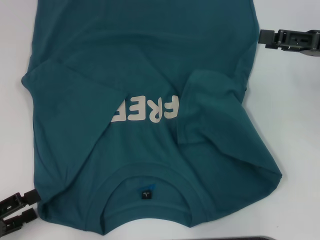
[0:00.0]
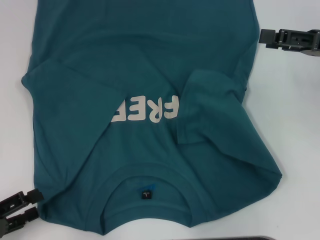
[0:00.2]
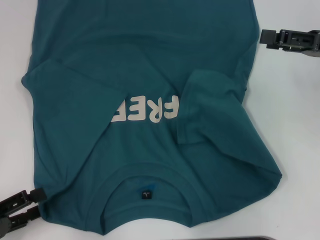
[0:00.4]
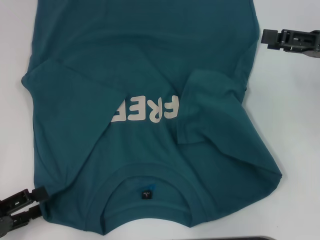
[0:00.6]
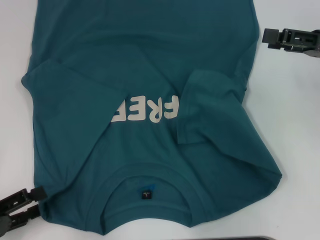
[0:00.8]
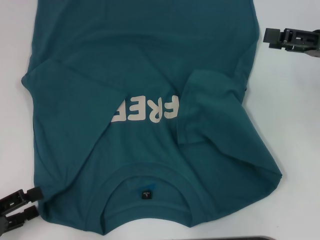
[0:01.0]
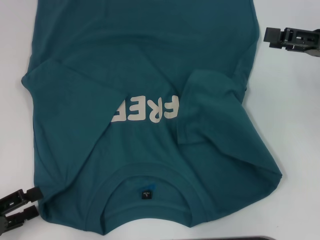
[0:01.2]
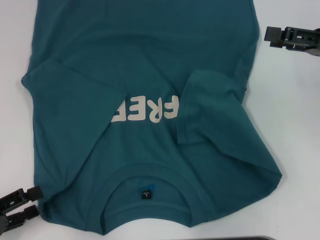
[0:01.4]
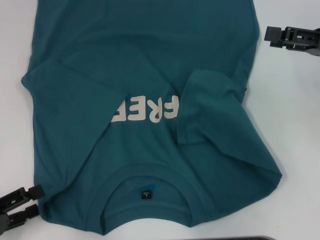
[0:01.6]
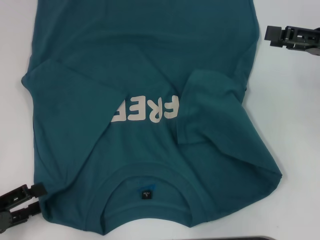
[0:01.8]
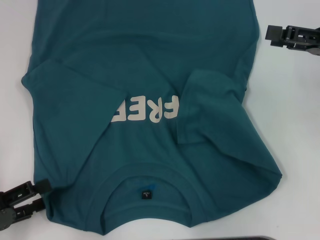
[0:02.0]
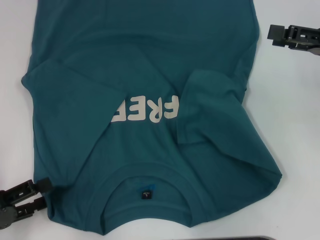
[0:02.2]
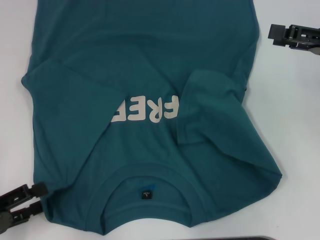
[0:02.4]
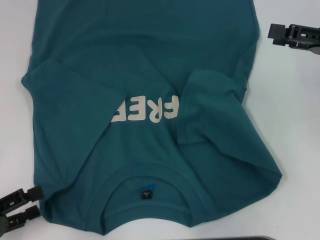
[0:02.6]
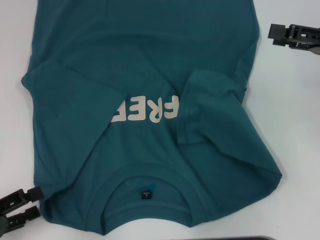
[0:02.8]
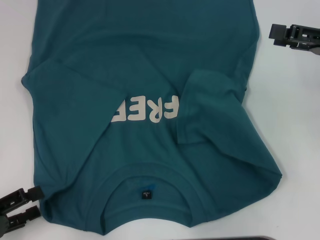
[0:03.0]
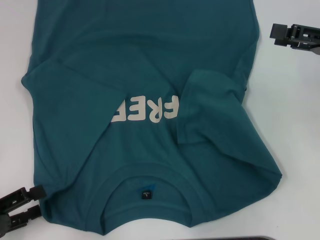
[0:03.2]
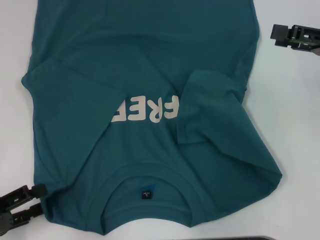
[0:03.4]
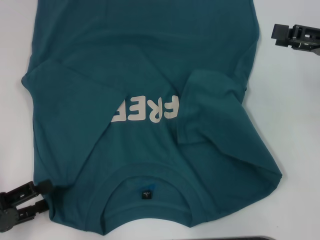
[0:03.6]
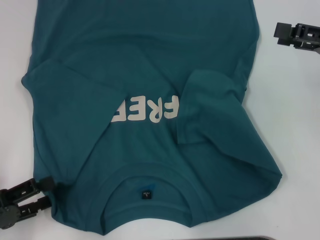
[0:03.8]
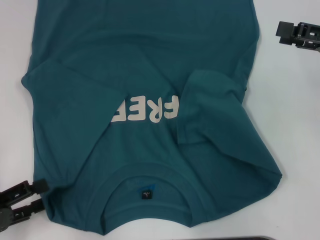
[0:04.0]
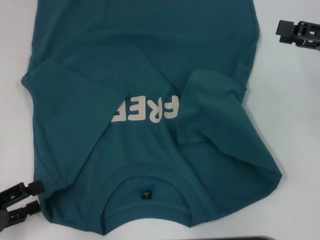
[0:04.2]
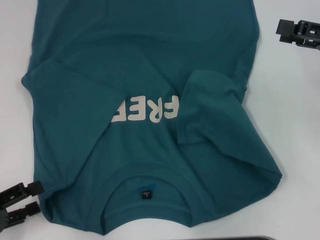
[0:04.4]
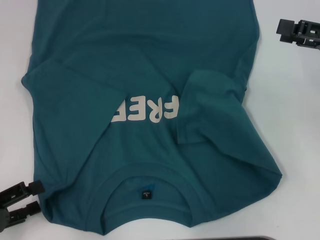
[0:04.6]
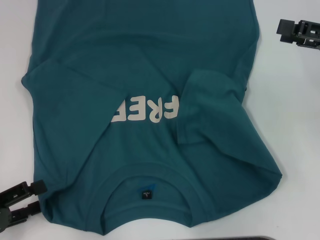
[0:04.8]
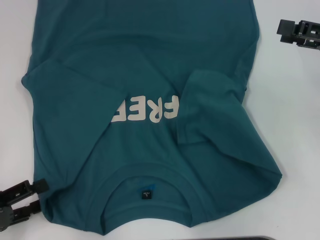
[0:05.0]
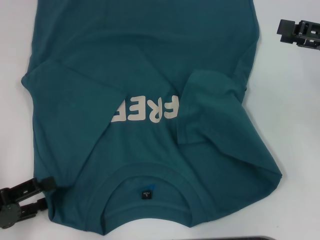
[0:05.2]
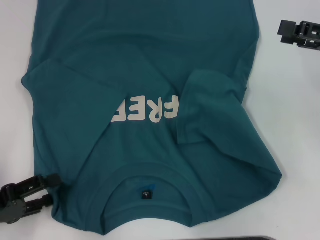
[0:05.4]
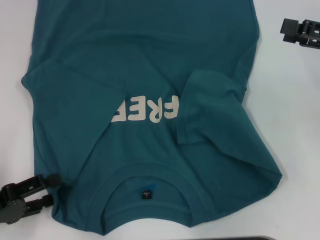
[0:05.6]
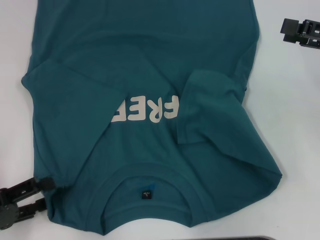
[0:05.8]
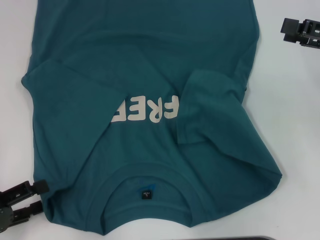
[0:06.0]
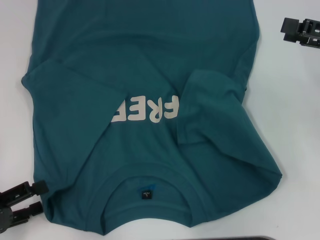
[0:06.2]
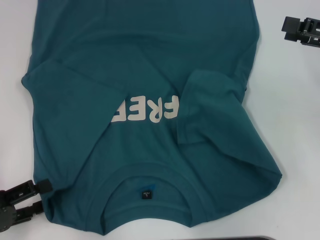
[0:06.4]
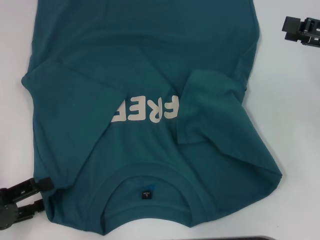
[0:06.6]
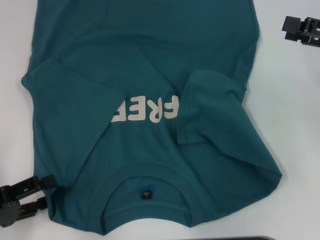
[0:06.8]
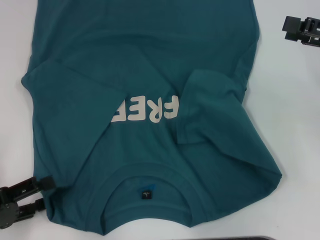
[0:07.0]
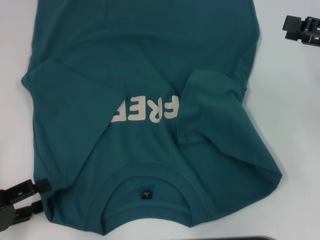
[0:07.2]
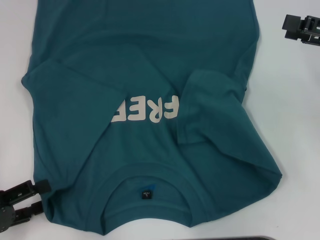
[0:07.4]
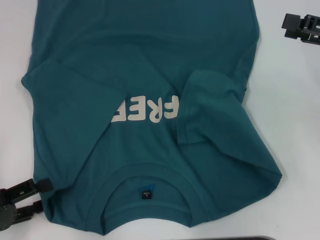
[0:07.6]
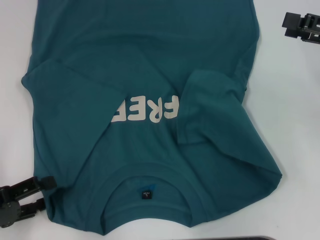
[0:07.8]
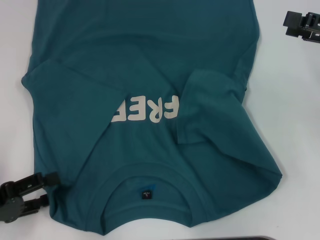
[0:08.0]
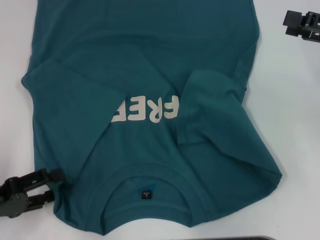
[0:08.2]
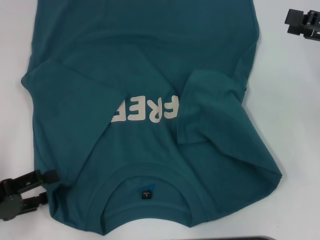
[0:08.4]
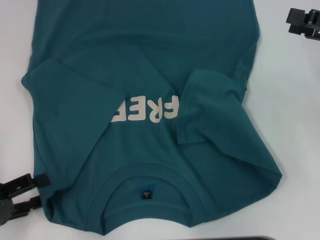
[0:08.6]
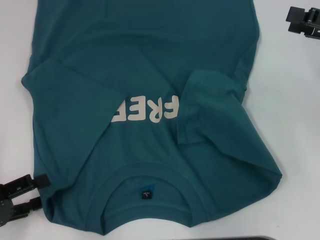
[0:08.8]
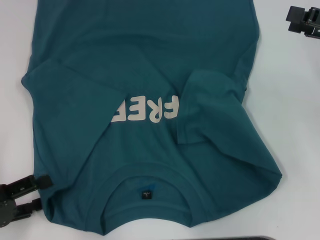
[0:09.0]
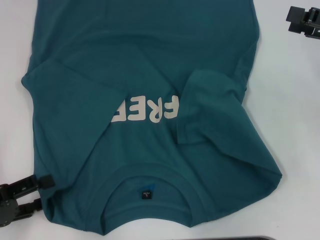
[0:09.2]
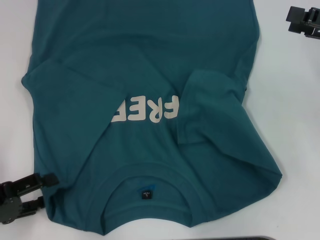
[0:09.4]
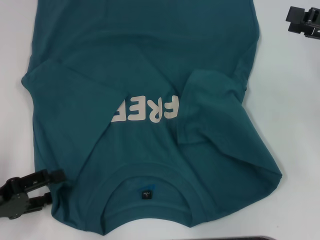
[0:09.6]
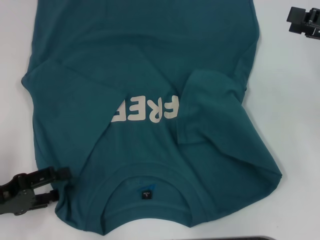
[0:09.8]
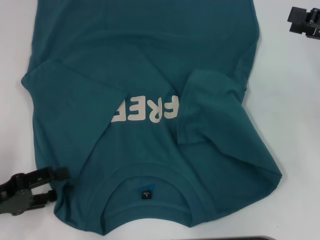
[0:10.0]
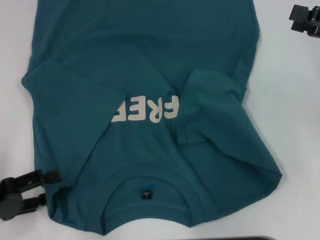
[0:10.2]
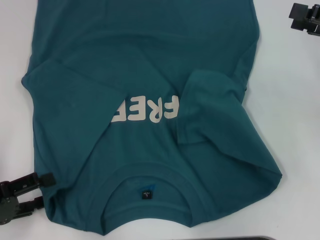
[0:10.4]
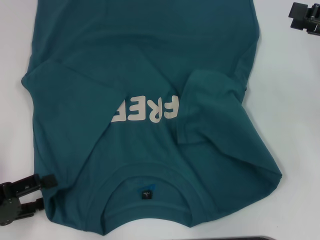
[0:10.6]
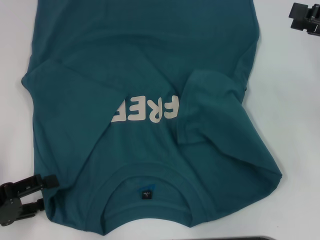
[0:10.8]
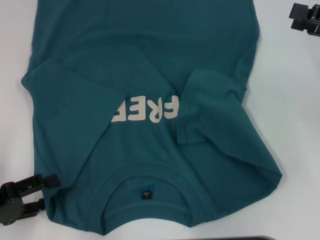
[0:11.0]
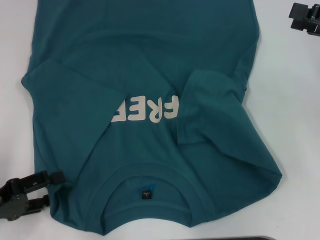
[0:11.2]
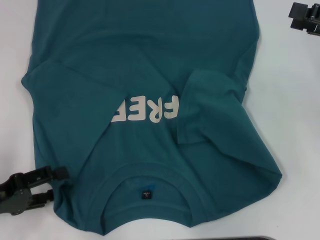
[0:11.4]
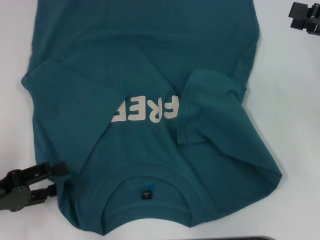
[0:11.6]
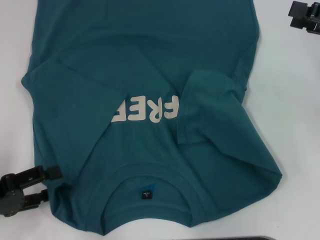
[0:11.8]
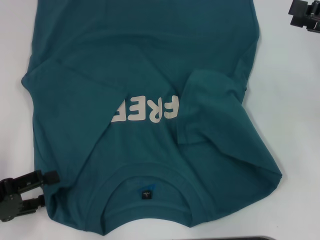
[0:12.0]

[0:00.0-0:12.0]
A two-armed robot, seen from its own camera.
0:00.0 to 0:01.6: Neither gripper changes place.
0:01.6 to 0:06.0: The grippers move only a little.
0:06.0 to 0:07.6: Both grippers stay put.
0:07.6 to 0:12.0: There are only small adjustments of the grippers.

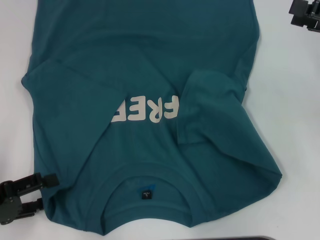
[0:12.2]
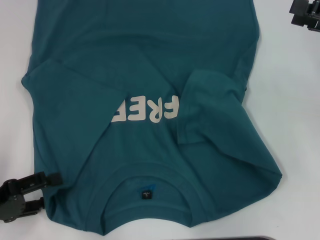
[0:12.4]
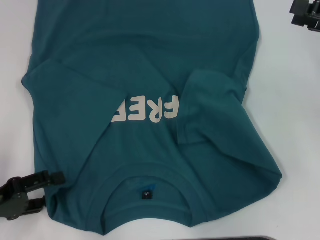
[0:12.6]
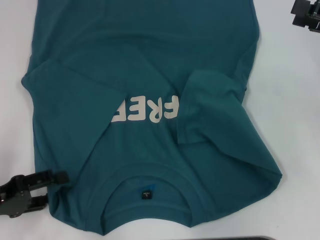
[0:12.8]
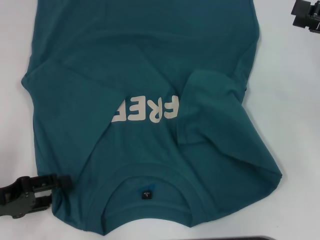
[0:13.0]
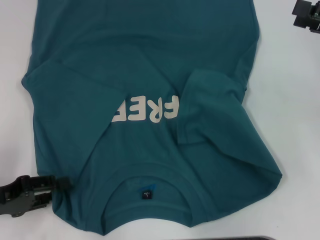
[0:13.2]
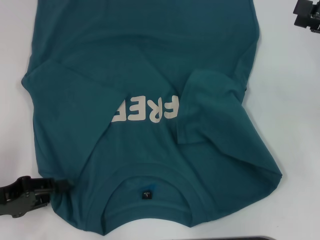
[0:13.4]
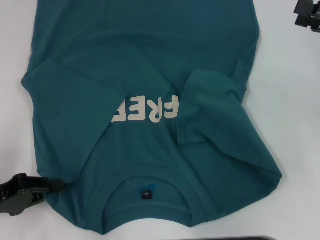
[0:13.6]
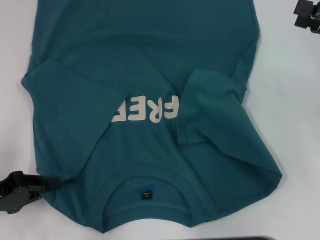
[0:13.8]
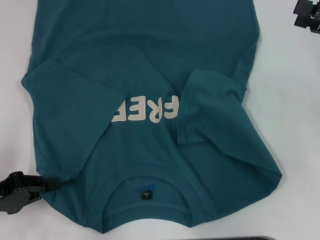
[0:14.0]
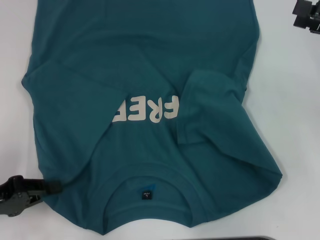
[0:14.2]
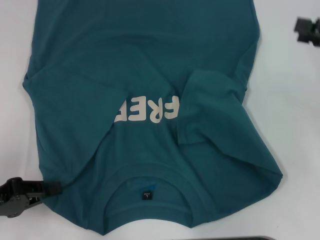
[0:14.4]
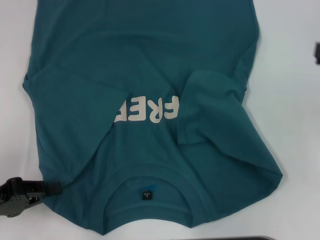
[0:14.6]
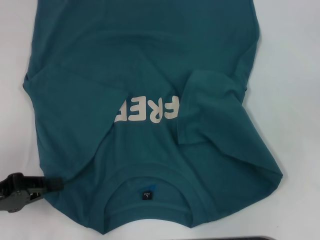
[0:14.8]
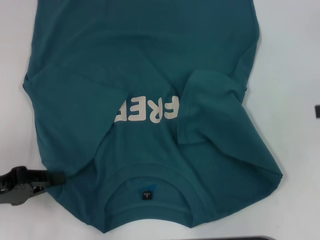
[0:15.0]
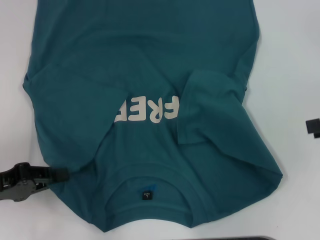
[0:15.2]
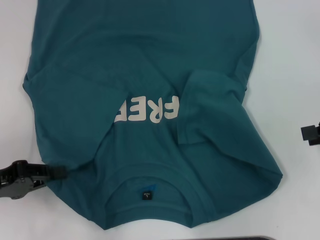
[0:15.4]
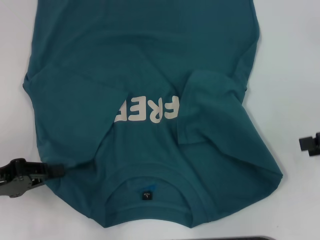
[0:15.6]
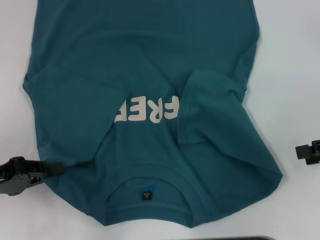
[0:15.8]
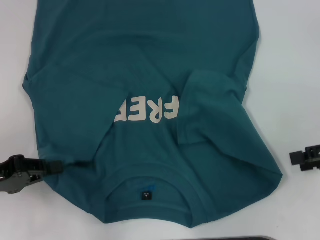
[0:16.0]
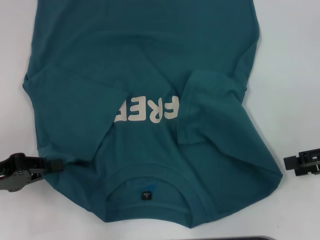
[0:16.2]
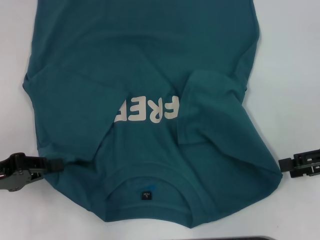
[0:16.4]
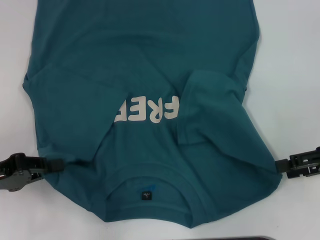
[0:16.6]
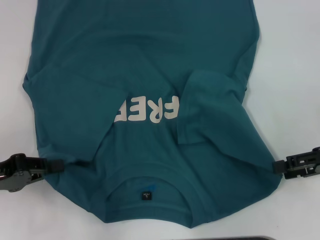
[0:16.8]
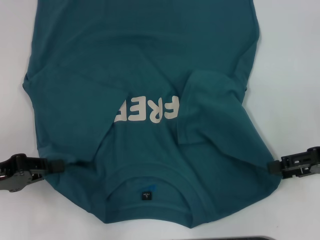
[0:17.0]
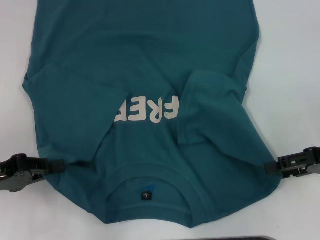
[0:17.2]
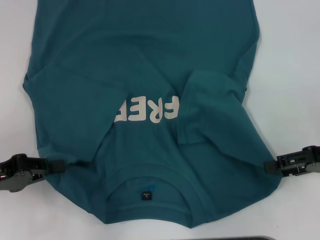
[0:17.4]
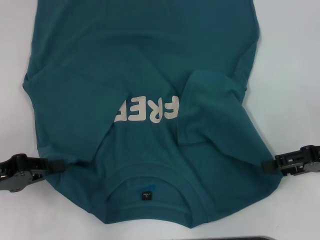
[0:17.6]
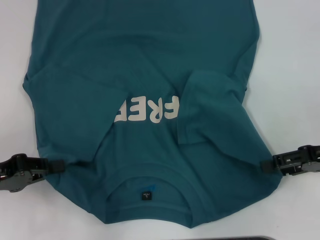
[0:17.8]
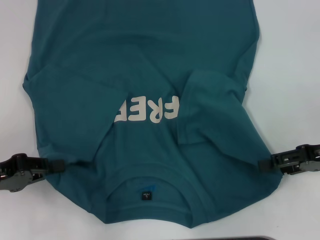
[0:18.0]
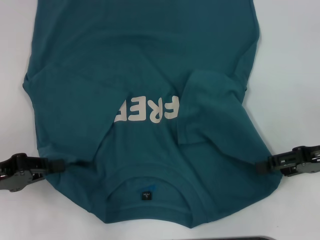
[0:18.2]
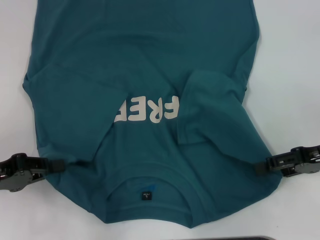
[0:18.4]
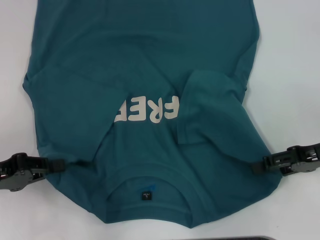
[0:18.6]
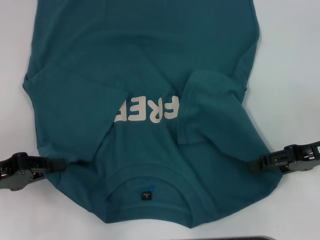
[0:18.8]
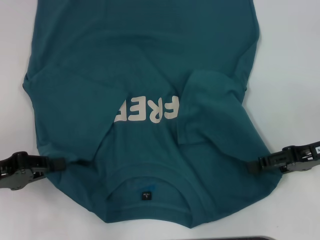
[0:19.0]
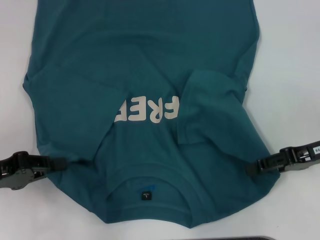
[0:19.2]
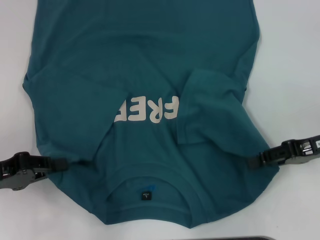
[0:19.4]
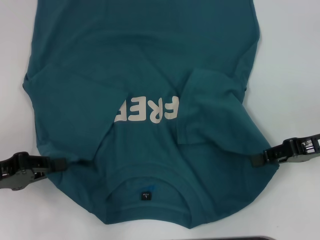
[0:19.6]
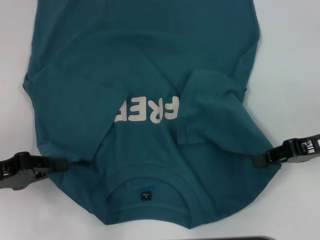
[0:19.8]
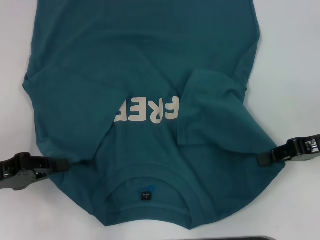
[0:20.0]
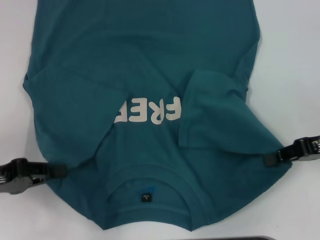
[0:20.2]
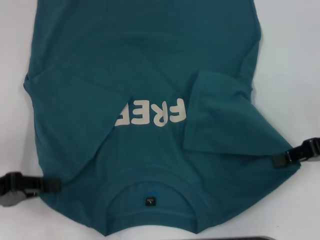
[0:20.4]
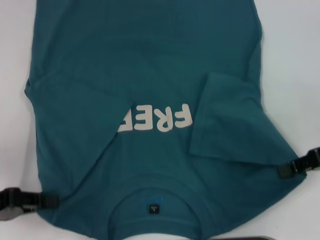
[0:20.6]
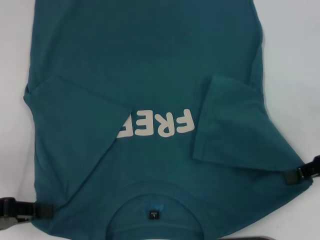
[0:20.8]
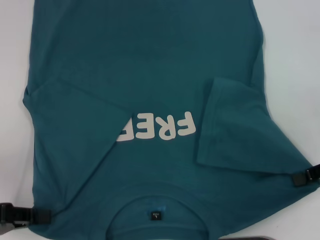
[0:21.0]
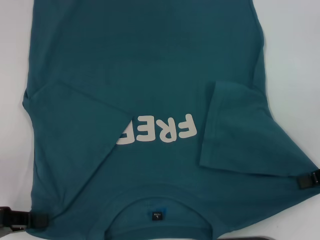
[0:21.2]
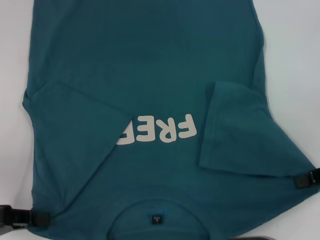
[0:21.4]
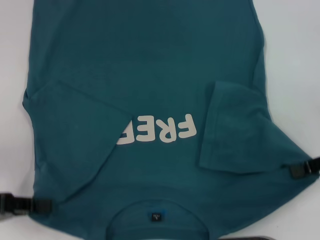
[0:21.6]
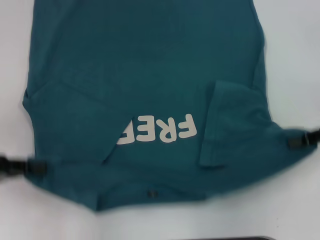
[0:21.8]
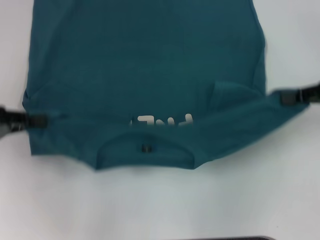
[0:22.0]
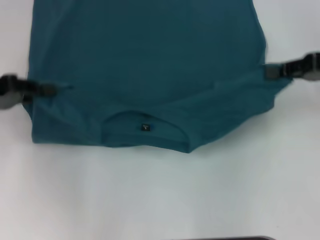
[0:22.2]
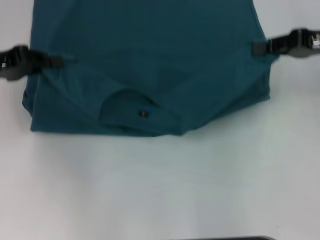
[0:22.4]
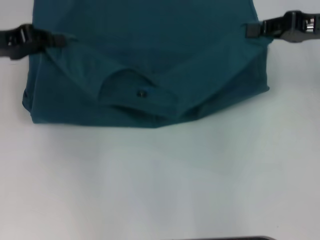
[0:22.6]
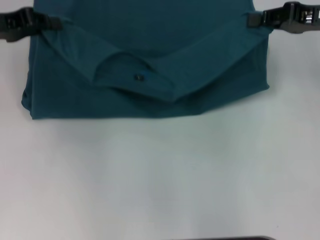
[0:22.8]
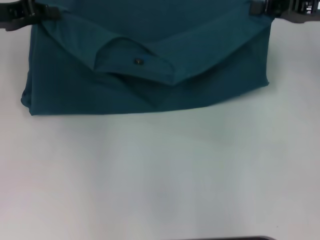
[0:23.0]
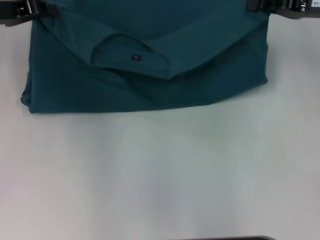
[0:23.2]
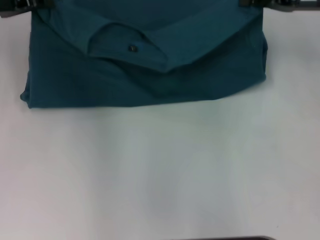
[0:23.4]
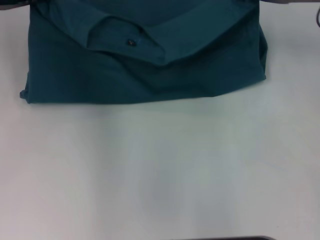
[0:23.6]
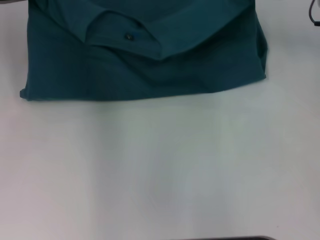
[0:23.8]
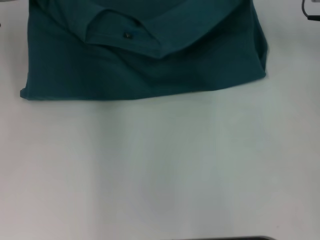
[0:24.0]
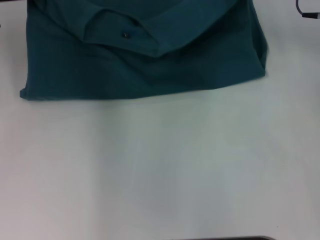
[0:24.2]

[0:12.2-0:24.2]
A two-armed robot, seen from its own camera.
Step, 0:12.2 to 0:14.2: Grab the bottom left corner with your left hand.
Step, 0:14.4 to 0:20.0: Grab the bottom right corner with your right hand.
0:12.2 to 0:13.8: The left gripper closes its fingers.
0:15.2 to 0:16.6: The right gripper heads downward, covering approximately 5 cm.
0:16.6 to 0:18.2: The grippers make only small movements.
0:18.2 to 0:19.8: The right gripper closes.
0:19.8 to 0:21.2: The right gripper goes about 5 cm to the right.
0:21.2 to 0:22.6: The left gripper shifts some 20 cm forward and upward. The right gripper moves forward, upward and to the left, about 15 cm.
0:22.6 to 0:24.2: The left gripper moves forward, roughly 5 cm, while the right gripper travels forward and to the left by some 10 cm.
